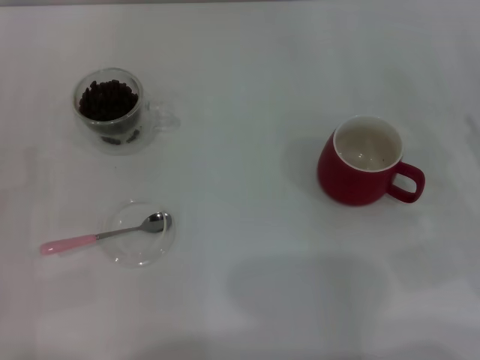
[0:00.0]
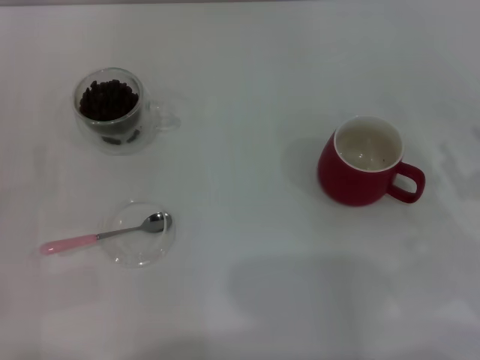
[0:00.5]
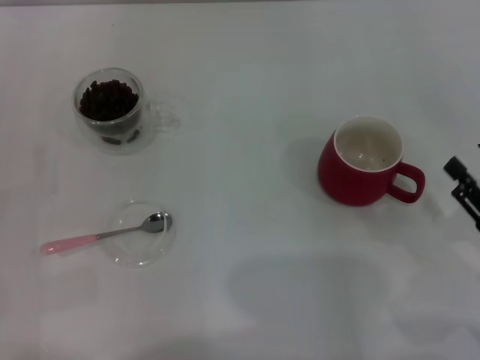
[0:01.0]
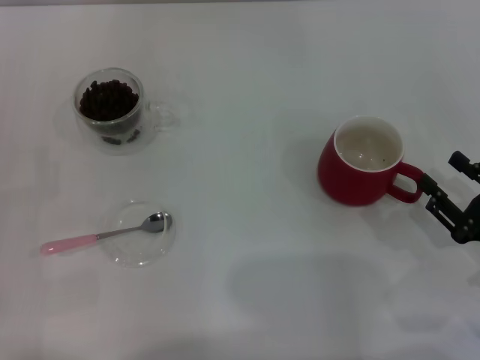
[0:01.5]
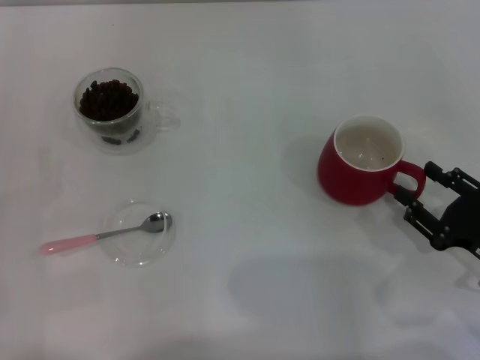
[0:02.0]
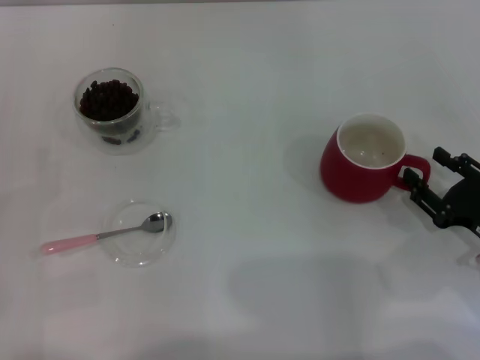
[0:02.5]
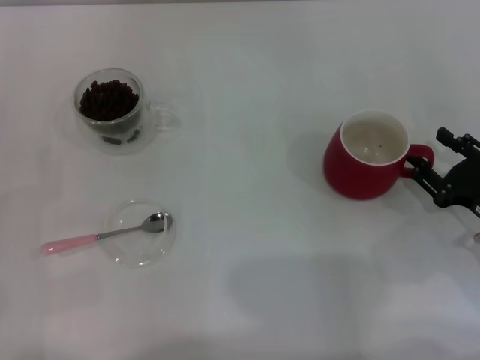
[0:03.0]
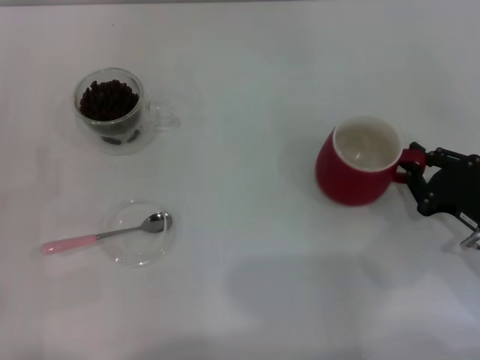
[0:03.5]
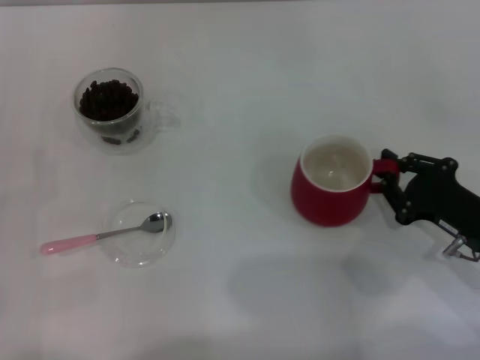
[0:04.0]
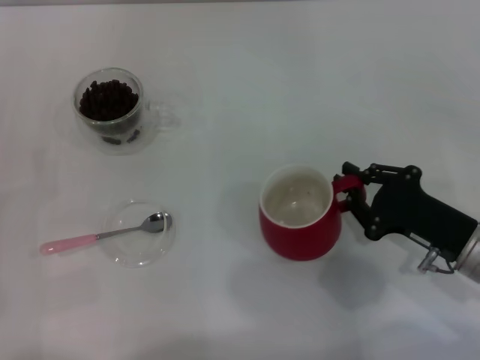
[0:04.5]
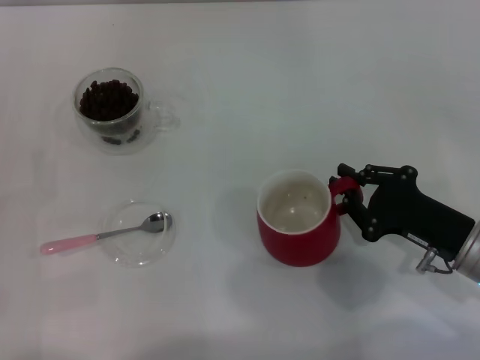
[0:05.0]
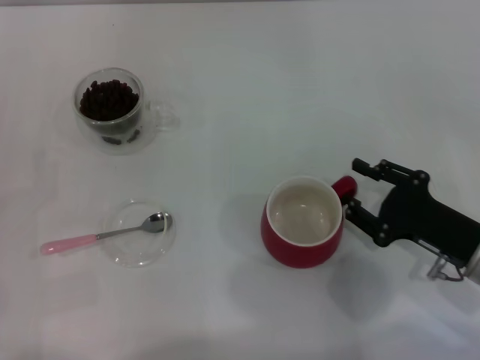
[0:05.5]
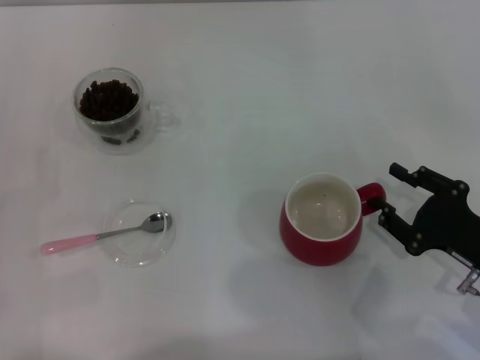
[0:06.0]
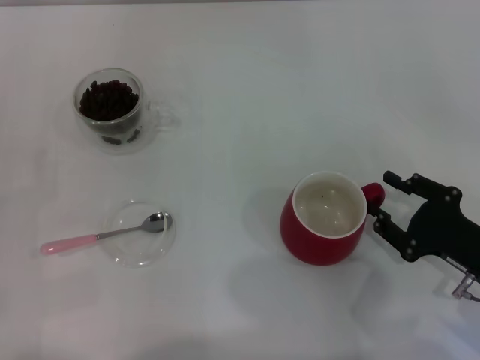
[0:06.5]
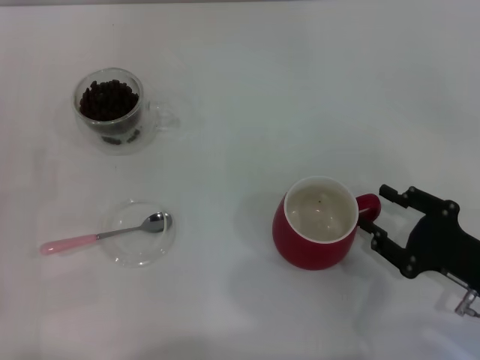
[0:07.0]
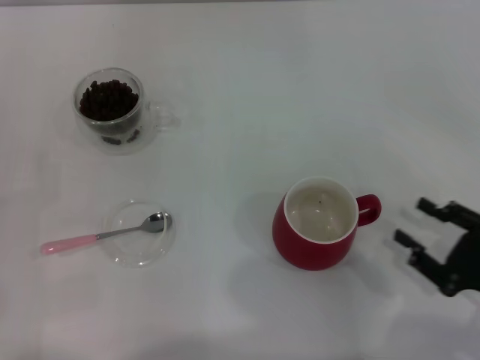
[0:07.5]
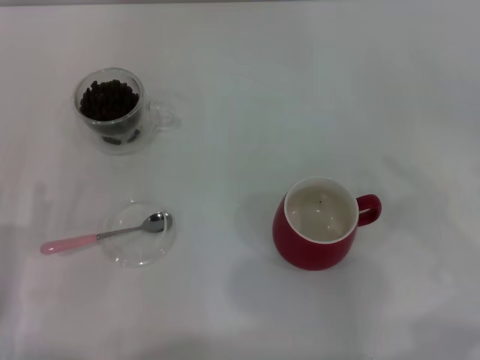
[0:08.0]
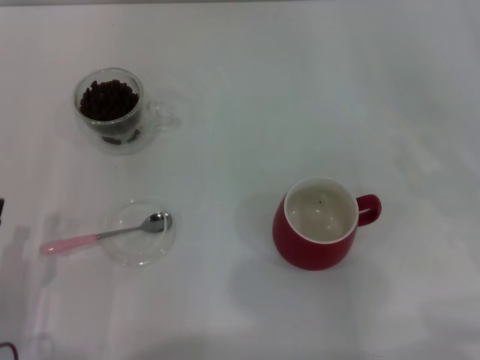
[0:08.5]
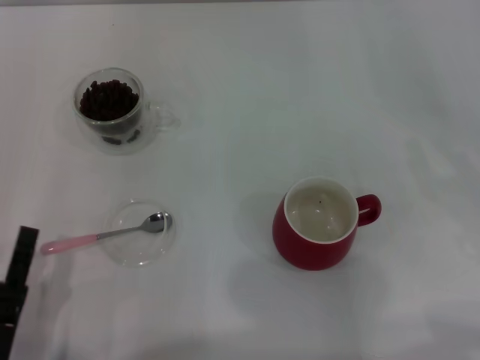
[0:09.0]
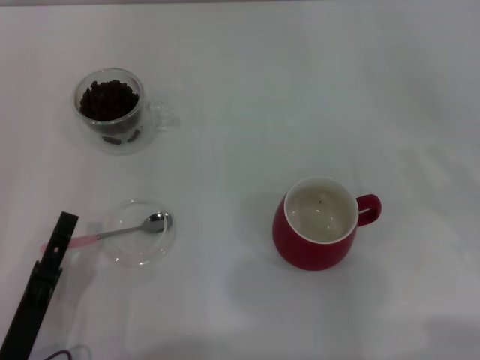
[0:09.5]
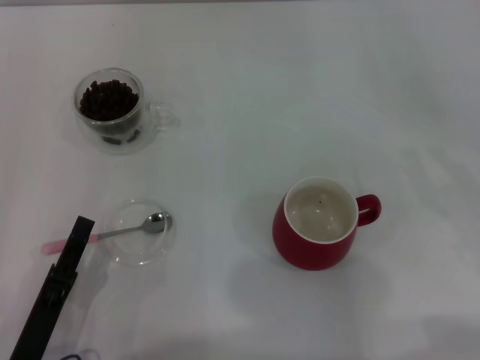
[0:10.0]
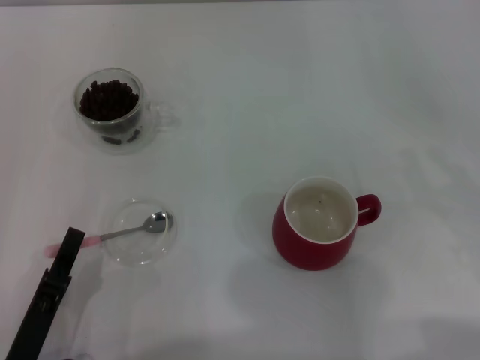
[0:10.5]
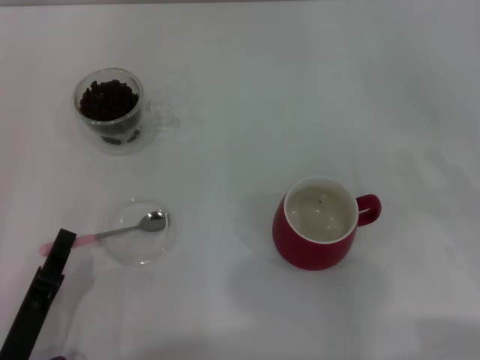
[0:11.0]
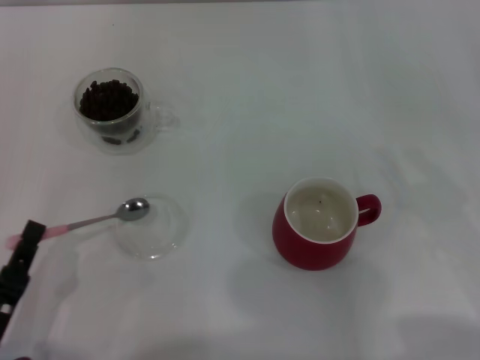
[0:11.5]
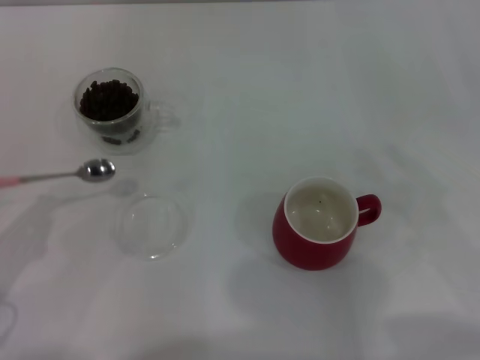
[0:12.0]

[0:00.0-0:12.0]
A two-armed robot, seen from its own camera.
Task of the whole recording: Use a pink spoon to take out the coffee beans from the glass and pour them into the red cup.
Step, 0:07.5 to 0:11.5: Pick up the spoon with the right gripper.
0:00.0 to 0:02.0: The right gripper moves approximately 5 cm.
0:02.0 to 0:04.0: The right gripper closes up.
0:04.0 to 0:06.0: The right gripper opens up.
0:06.0 to 0:08.0: The right gripper heads to the right and upward, covering approximately 10 cm.
0:08.0 to 0:10.0: The left gripper moves to the right, approximately 5 cm.
0:10.0 to 0:12.0: The left gripper heads to the left, covering approximately 10 cm, and closes.

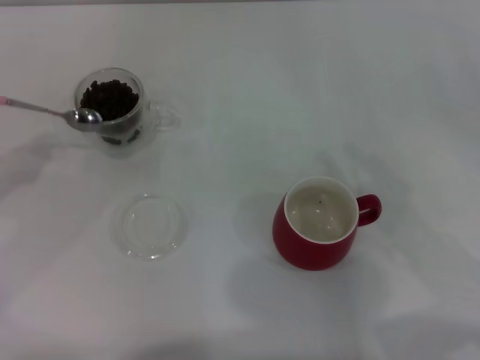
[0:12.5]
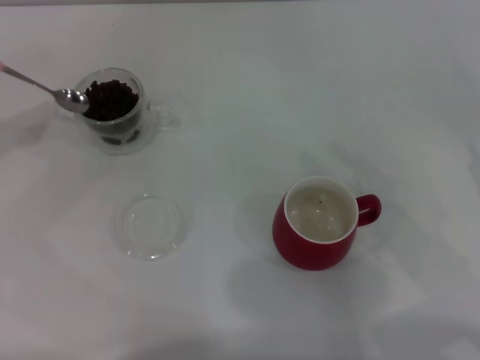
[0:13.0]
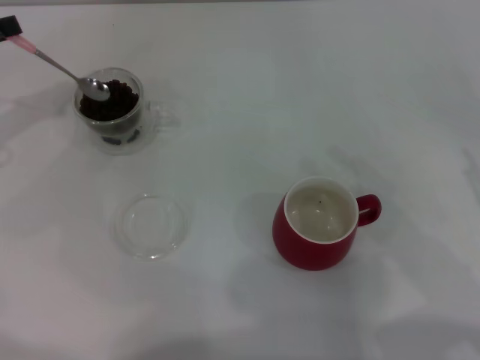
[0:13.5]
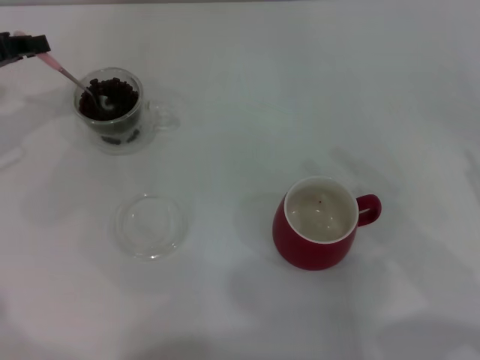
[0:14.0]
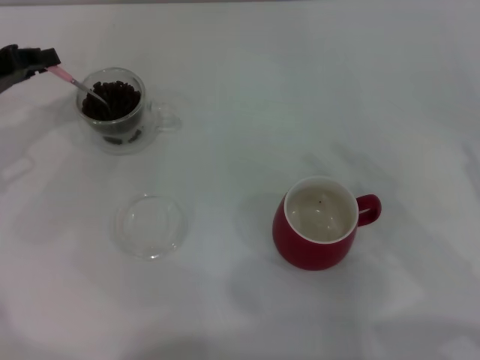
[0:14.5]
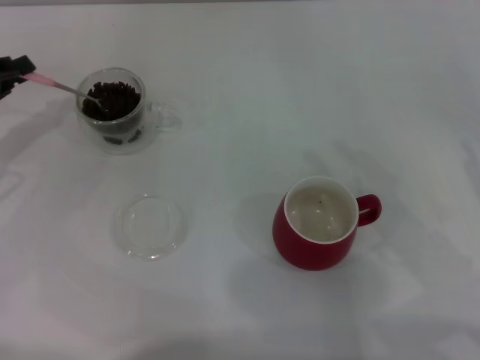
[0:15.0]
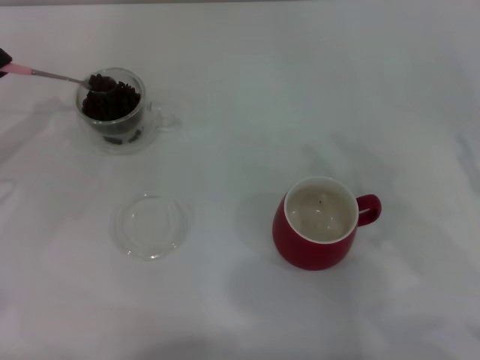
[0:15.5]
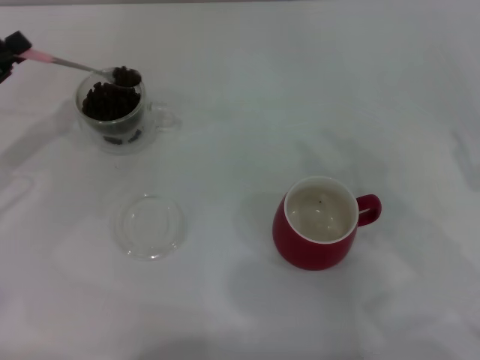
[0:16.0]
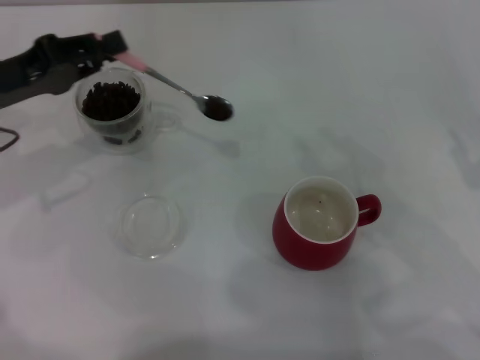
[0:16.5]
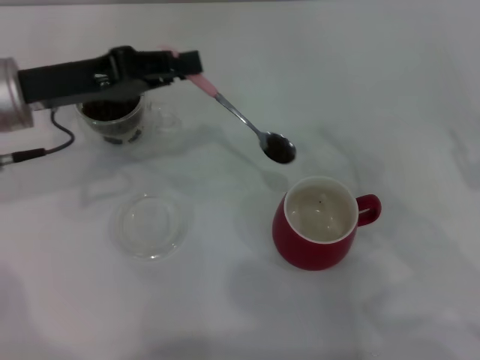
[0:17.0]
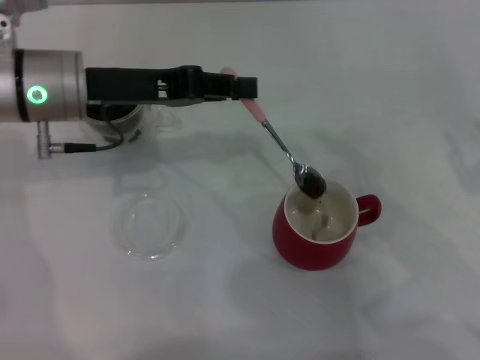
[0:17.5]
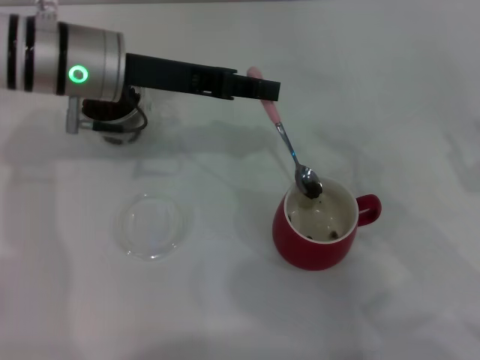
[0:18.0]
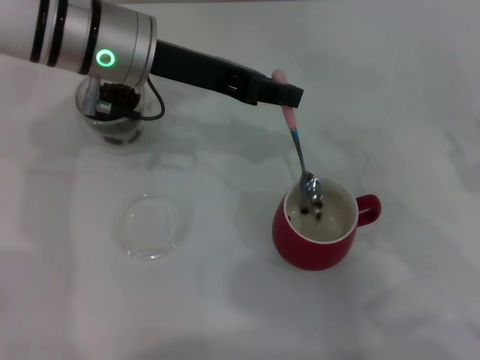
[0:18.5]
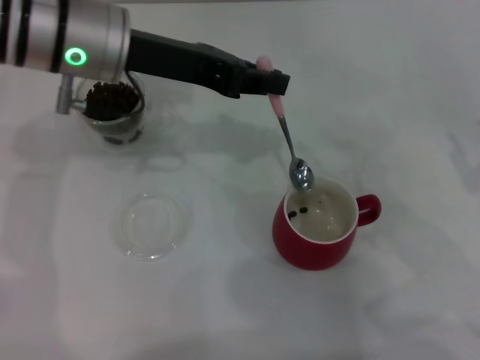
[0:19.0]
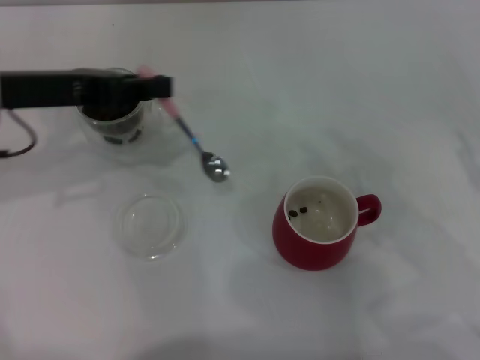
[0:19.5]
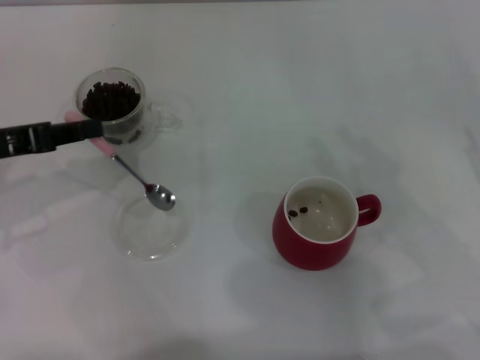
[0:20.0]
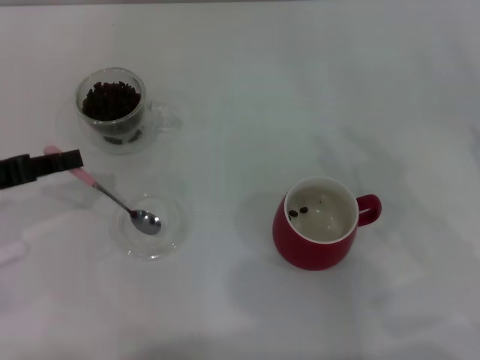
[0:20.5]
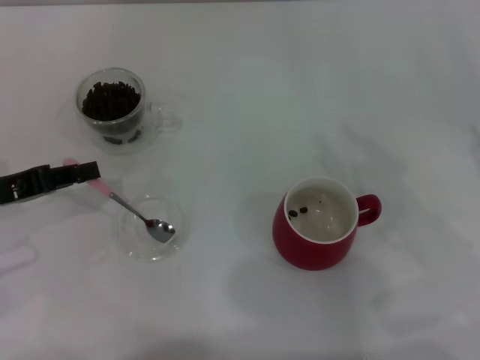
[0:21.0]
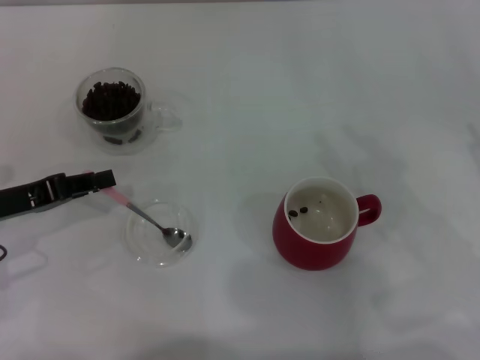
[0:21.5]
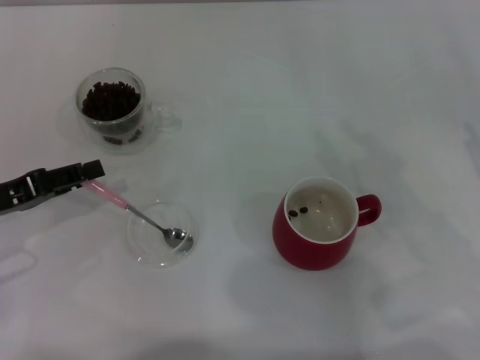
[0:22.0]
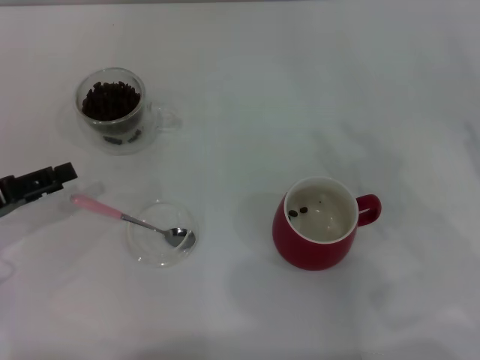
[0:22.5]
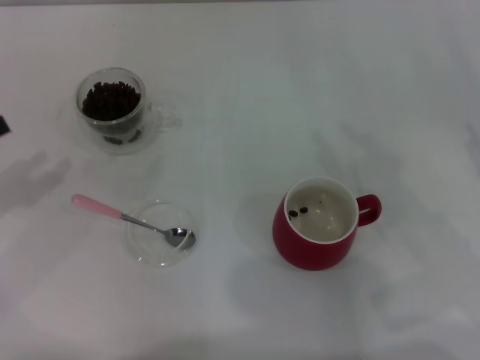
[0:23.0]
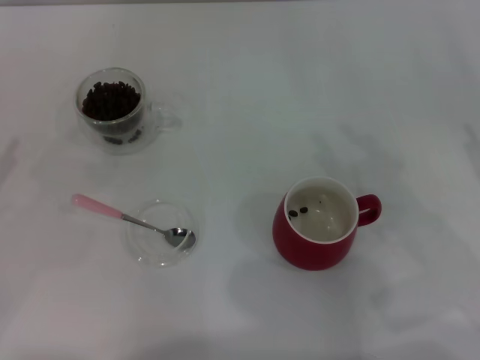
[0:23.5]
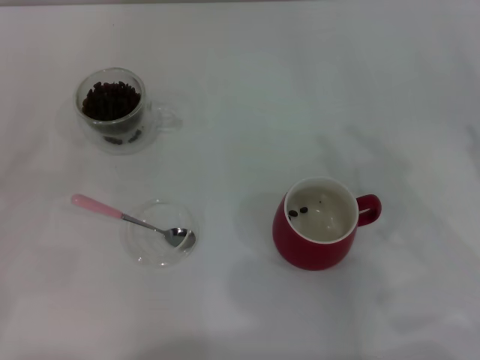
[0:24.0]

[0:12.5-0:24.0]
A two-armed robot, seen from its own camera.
Task of the whole recording: Use a pink spoon to take out the coffee beans from the glass and pour them into the red cup.
0:12.5 to 0:14.5: The left gripper heads forward and to the right, covering some 10 cm.
0:14.5 to 0:16.5: The left gripper changes place by some 5 cm.
0:16.5 to 0:18.5: The left gripper is displaced to the right by about 15 cm.
0:18.5 to 0:20.0: The left gripper is displaced to the left and backward by approximately 20 cm.
0:20.0 to 0:22.0: The left gripper moves downward, some 5 cm.
0:22.0 to 0:24.0: The left gripper travels to the left and backward by approximately 10 cm, and opens its fingers.

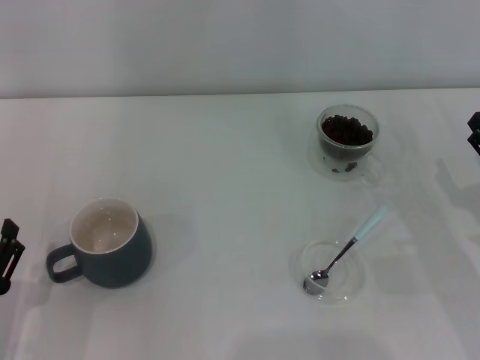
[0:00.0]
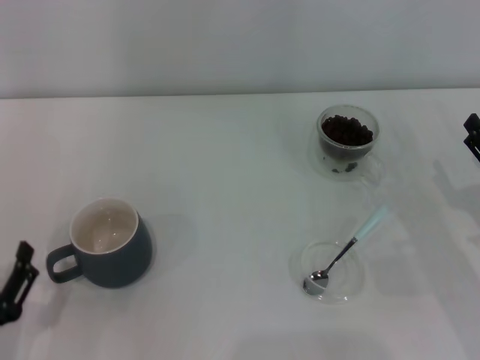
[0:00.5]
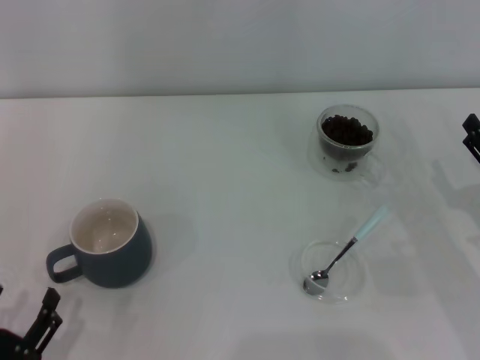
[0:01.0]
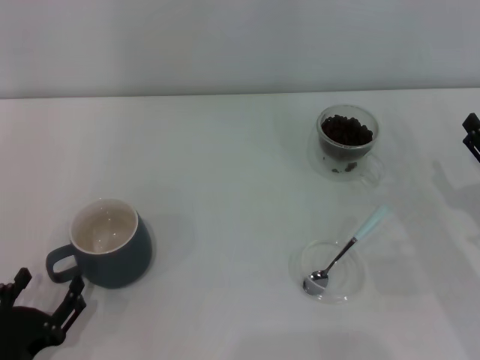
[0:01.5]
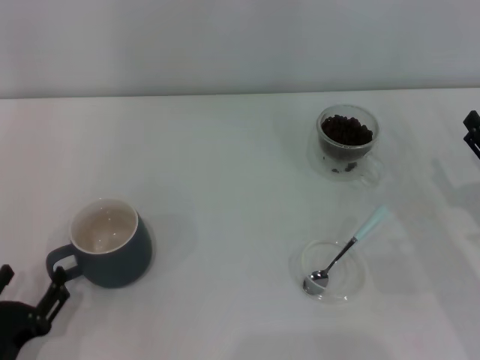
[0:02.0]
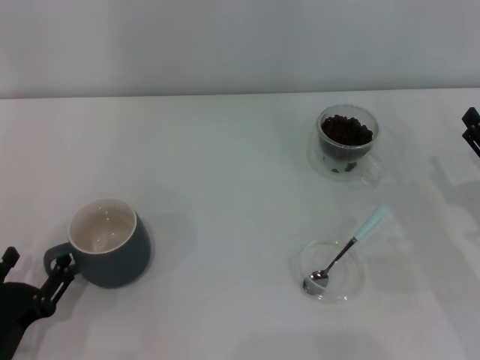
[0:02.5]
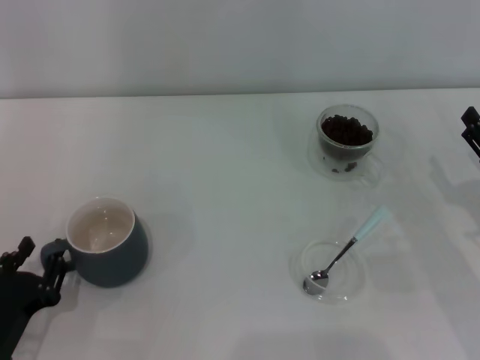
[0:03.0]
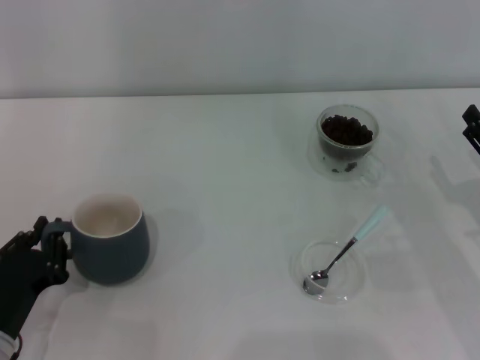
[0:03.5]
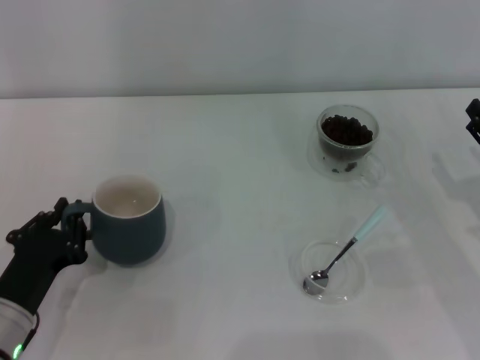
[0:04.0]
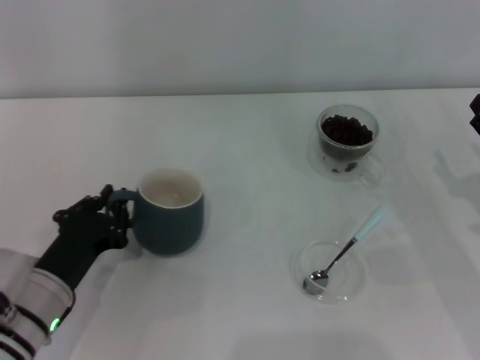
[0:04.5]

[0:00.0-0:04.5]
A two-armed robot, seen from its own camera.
Task of the whole recording: Use a blue spoon to take out the coffee beans from the glass and pour them into the gray cup.
0:00.0 to 0:02.0: There are only small adjustments of the grippers.
0:02.0 to 0:04.5: The left gripper moves forward and to the right, approximately 10 cm, and closes.
